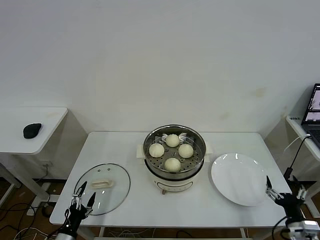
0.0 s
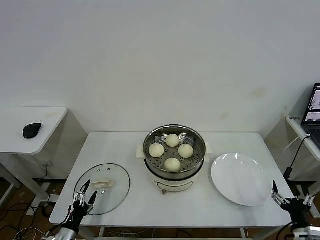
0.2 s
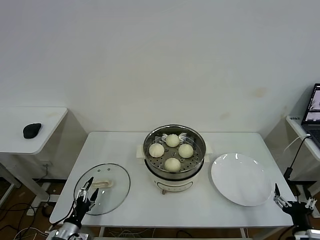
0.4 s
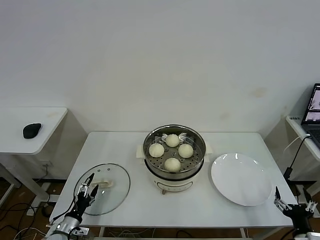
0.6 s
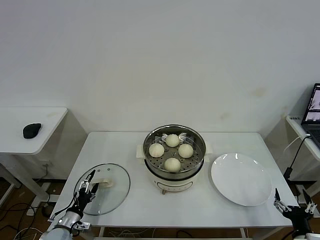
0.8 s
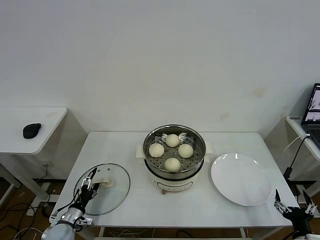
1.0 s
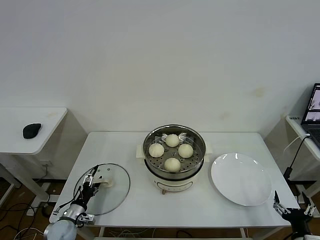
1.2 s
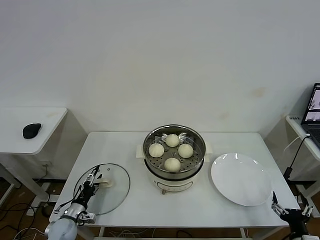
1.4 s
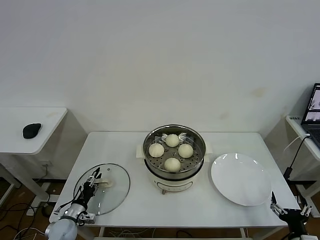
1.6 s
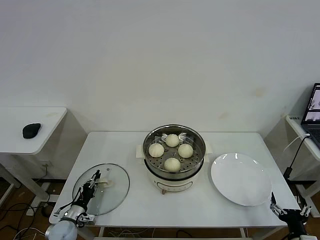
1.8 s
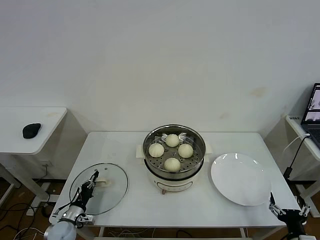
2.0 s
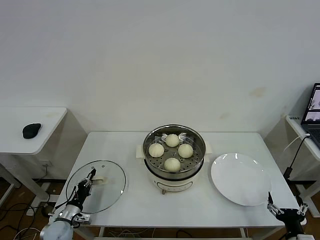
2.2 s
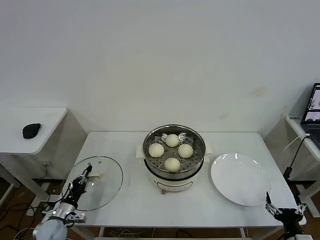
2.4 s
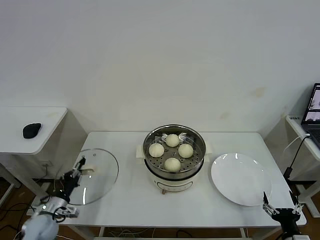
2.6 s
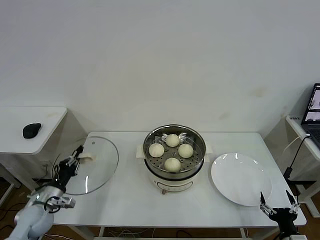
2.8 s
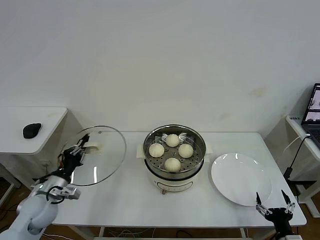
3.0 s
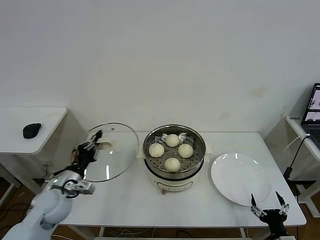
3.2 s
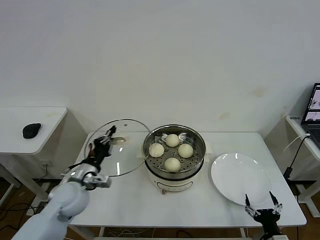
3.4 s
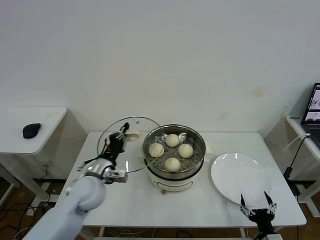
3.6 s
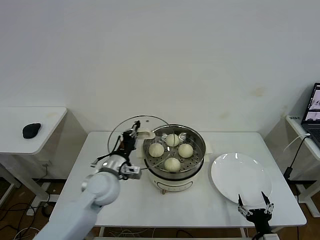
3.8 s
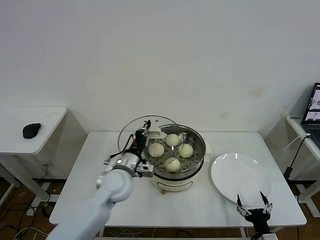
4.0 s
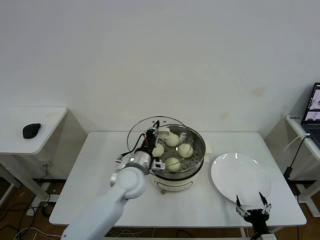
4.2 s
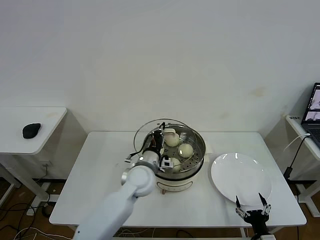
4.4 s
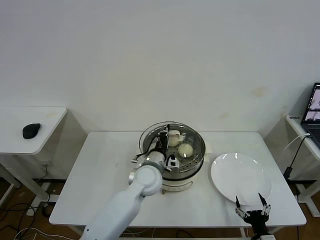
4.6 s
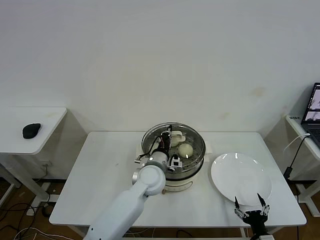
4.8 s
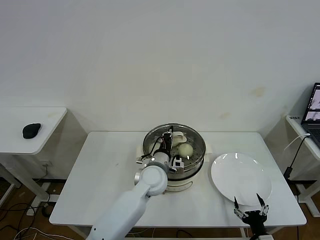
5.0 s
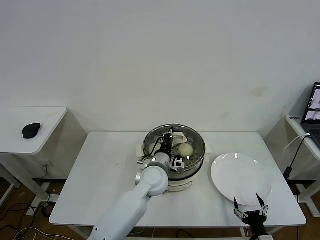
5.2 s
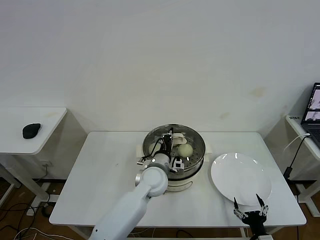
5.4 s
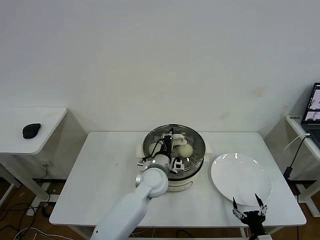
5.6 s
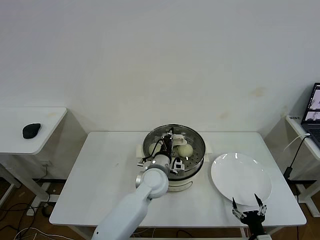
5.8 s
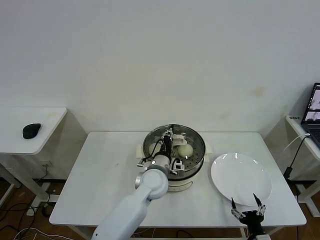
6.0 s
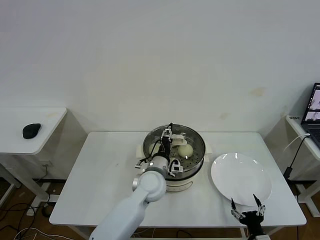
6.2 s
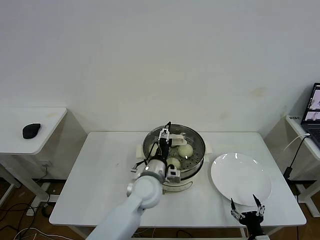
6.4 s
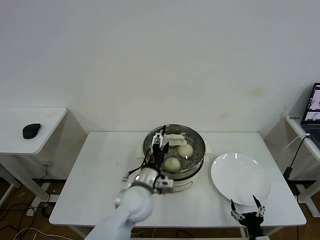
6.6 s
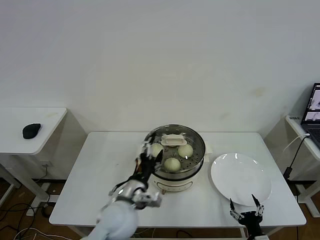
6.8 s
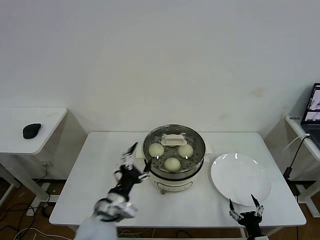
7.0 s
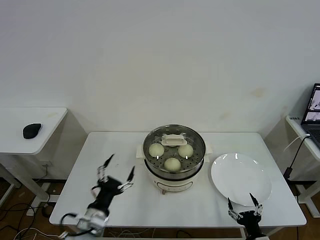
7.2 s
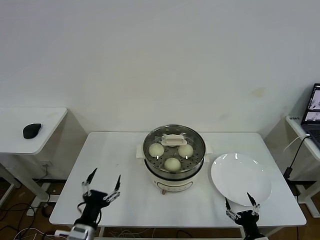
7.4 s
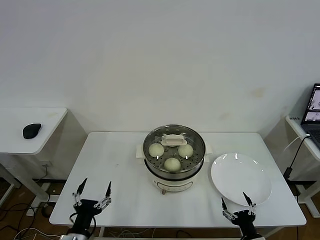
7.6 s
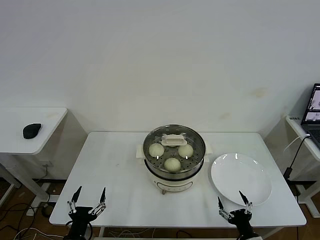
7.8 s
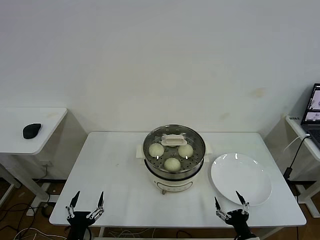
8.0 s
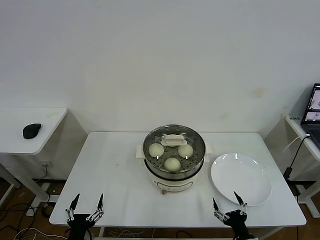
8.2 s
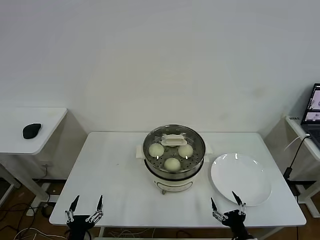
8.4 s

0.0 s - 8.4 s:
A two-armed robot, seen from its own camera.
Task of the whole recording: take steamed baozi put them in steamer then cover it.
Step, 0.0 s - 2.0 s: Grasp the pot lid with left gripper.
Step, 2.2 s - 6.6 s: Place the pot lid on the steamer with left gripper.
0.0 s - 1.4 s: The left gripper moves forward, some 10 cm.
1.4 s - 2.8 s: The left gripper travels upward by about 10 cm, and closes.
2.8 s - 4.2 s: The left gripper moves to the right, some 30 cm. Meanwhile the right gripper is displaced to the left by approximately 5 cm.
4.2 s - 5.6 s: The left gripper moves to the right, approximately 10 cm.
5.6 s - 7.0 s: The left gripper is displaced backward and to the left by approximately 20 cm, and opens.
7.0 s - 8.4 s: The left gripper goes some 25 cm to the left, backward and downward.

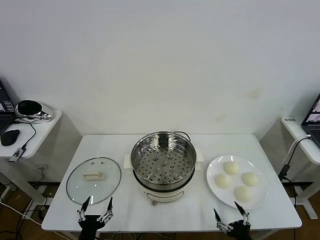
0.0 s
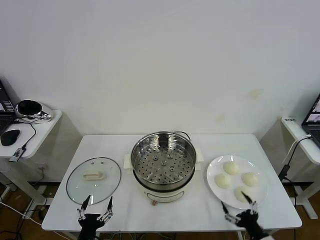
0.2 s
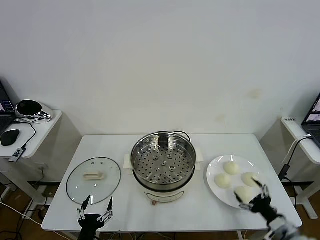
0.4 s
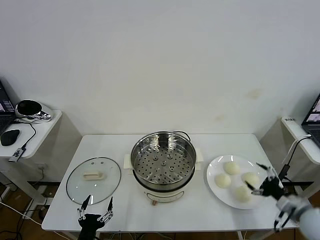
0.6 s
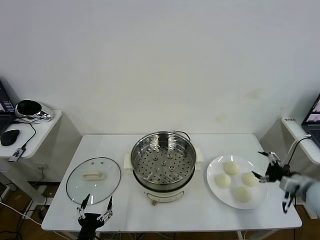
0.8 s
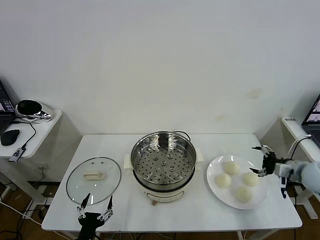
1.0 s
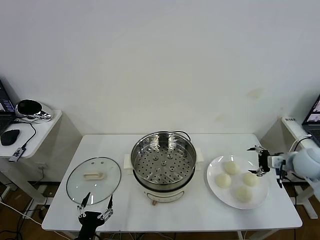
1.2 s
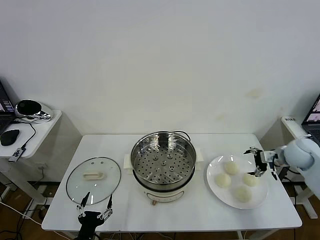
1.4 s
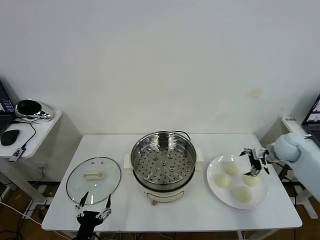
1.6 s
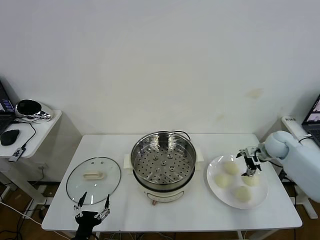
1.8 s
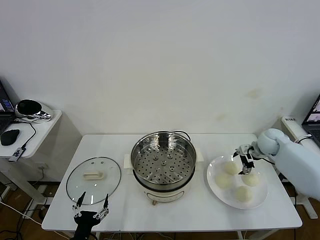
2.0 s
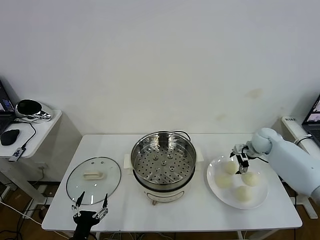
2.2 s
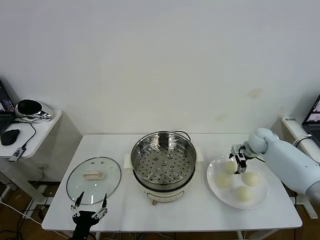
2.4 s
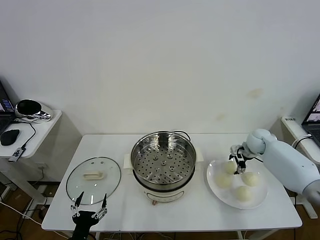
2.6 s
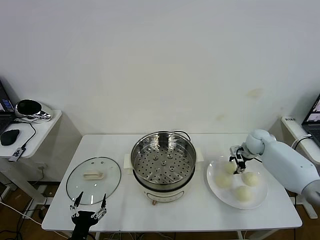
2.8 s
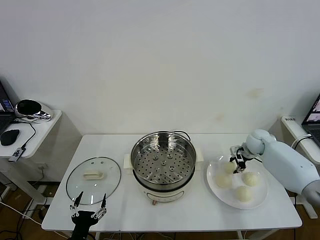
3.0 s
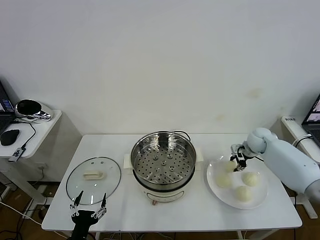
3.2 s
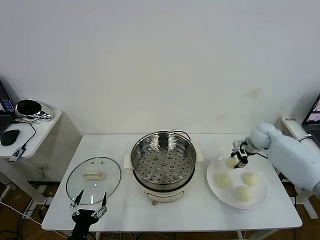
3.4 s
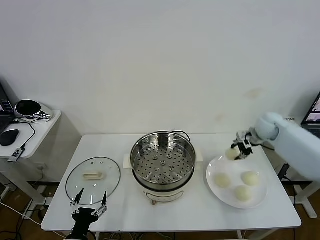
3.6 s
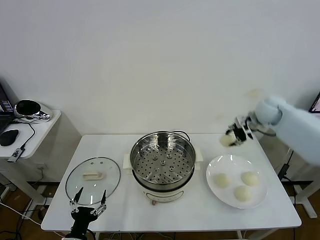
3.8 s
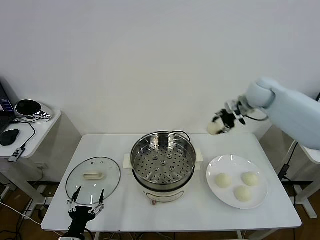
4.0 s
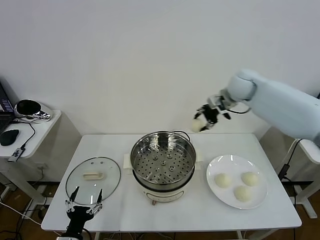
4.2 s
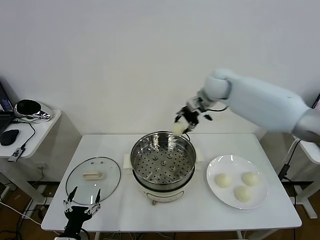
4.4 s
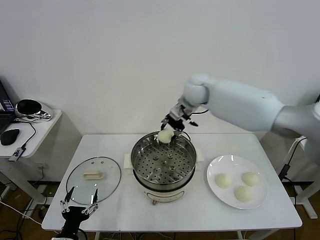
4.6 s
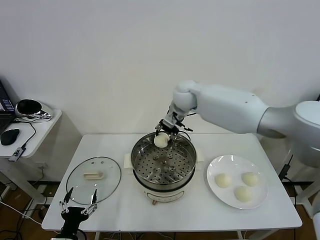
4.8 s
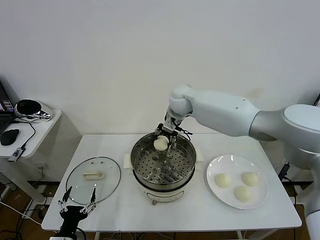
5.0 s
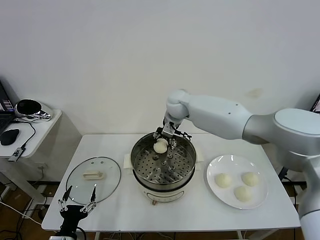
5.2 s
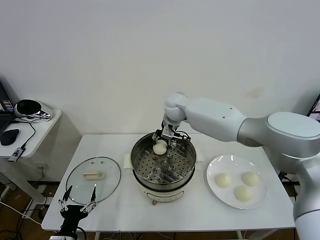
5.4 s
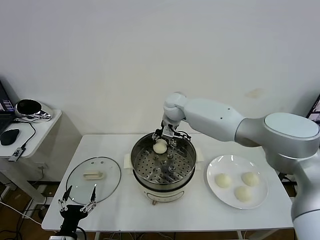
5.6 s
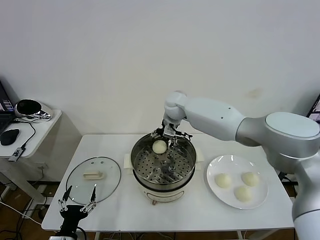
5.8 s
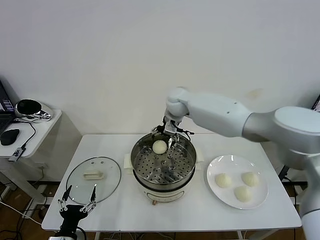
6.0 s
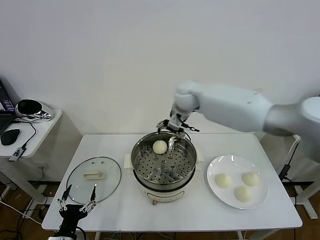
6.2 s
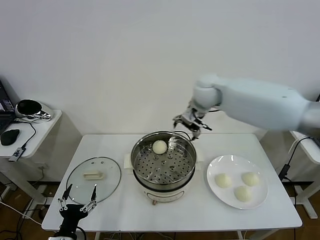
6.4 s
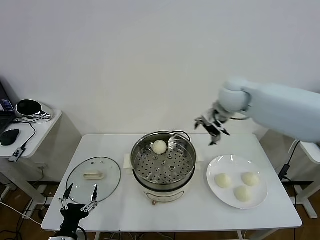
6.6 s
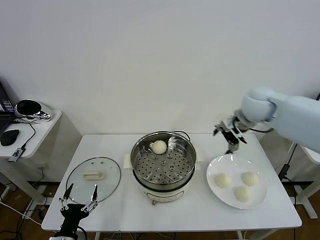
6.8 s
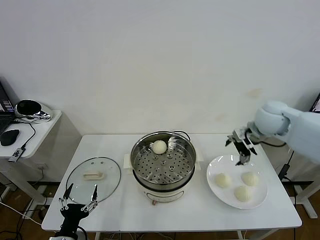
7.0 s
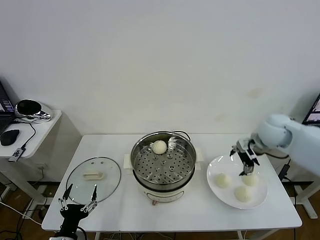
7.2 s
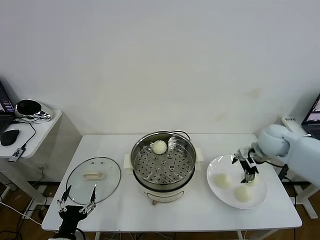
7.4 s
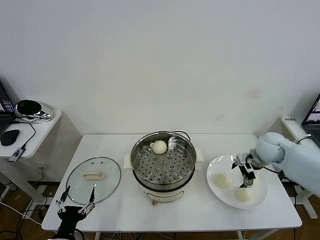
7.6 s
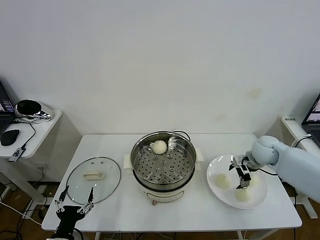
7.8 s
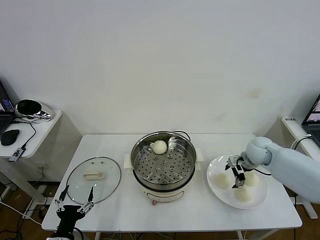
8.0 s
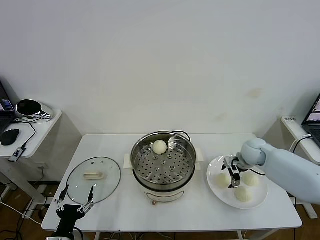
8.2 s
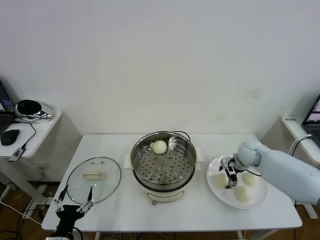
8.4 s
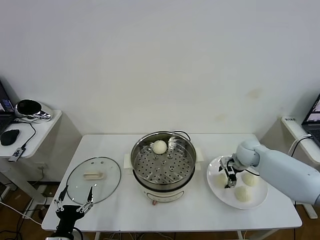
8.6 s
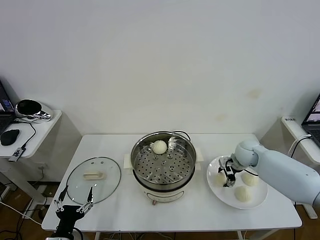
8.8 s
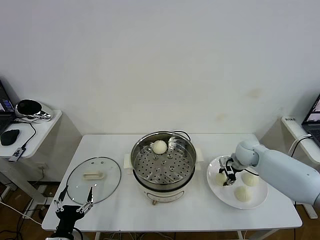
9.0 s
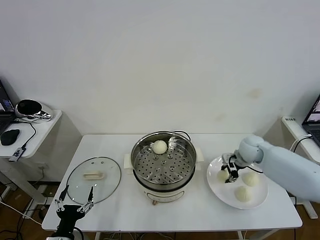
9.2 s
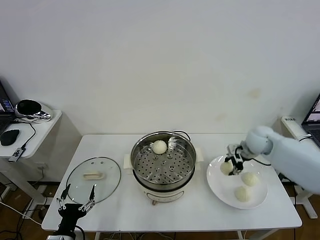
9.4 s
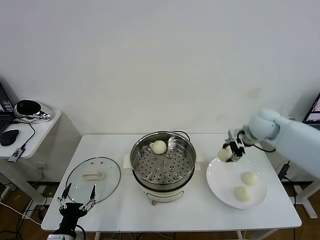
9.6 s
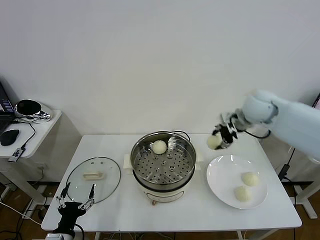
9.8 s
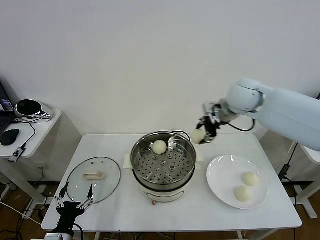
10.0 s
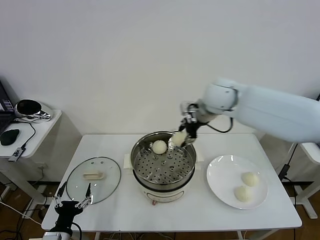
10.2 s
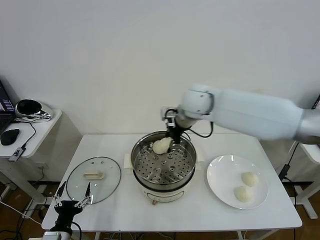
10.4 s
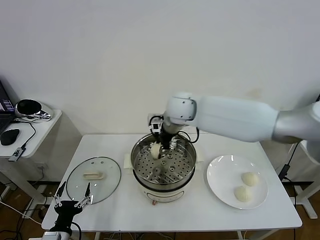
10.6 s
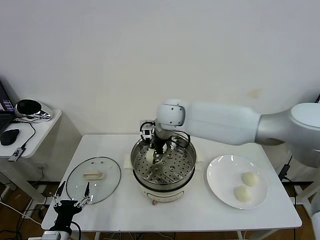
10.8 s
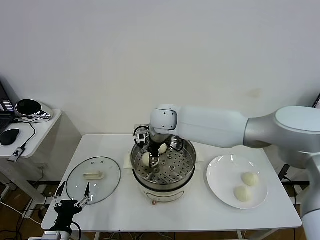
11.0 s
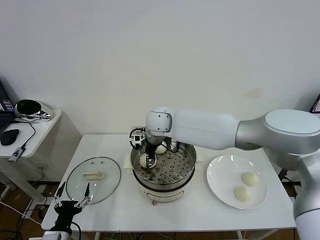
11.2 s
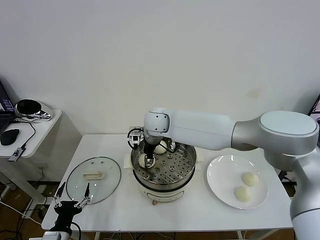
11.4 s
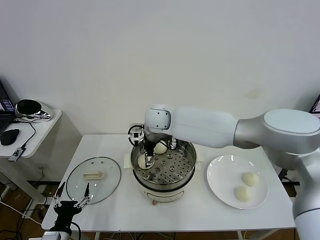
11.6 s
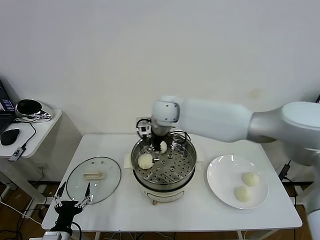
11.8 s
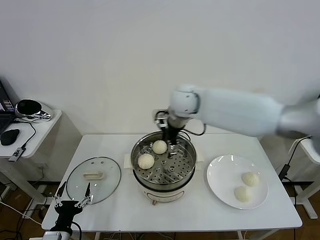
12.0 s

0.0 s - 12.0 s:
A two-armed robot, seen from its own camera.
Task of the whole recording: take steamed baozi put them in steamer then cover it.
Step, 0.0 s - 3.0 s: Grasp the baozi in the plate with right gripper.
Step, 3.2 s - 5.8 s: Place the baozi on the steamer with right gripper.
Step, 6.0 s - 9.0 s: Grasp the baozi in the plate with right gripper.
Step, 9.2 s - 11.6 s: Place the baozi on the steamer with right gripper.
1.6 s - 3.0 s: The right gripper moves forward, about 5 cm, and closes up.
3.0 s - 4.4 s: The right gripper travels to the left and upward by some 35 cm.
4.4 s - 6.0 s: The right gripper opens.
6.0 s - 7.6 s: The right gripper travels to the right and downward by about 30 cm.
7.6 s - 9.0 s: The right gripper ends up about 5 cm from where it was, and closes.
9.0 s - 10.4 s: The right gripper heads to the left and upward, covering some 35 cm.
10.4 s - 12.0 s: The right gripper travels to the left and back again, some 10 cm each way, and opens up.

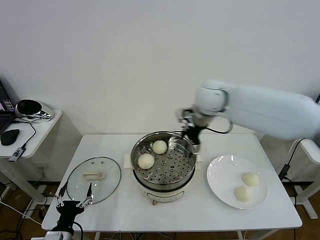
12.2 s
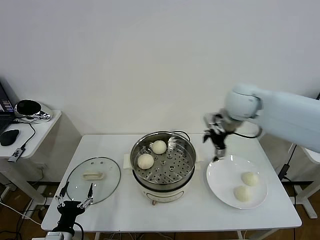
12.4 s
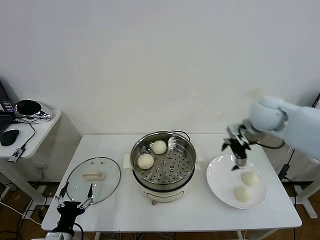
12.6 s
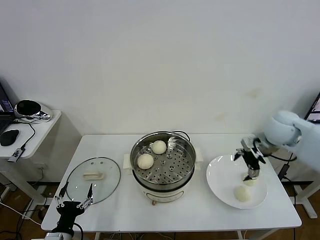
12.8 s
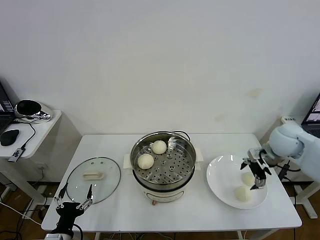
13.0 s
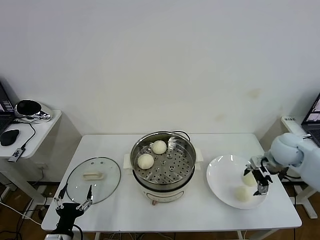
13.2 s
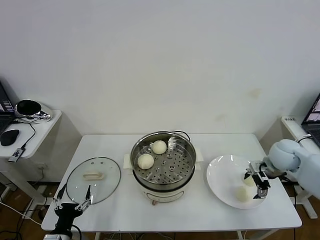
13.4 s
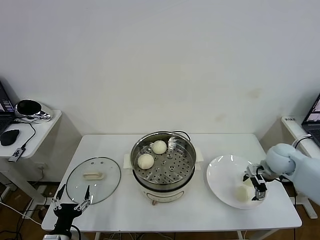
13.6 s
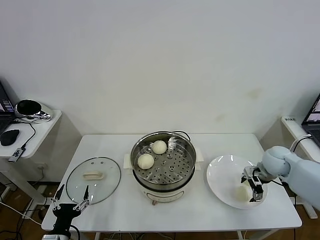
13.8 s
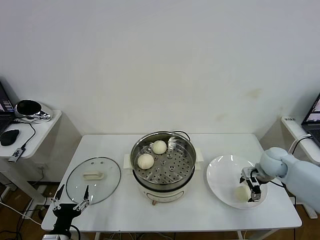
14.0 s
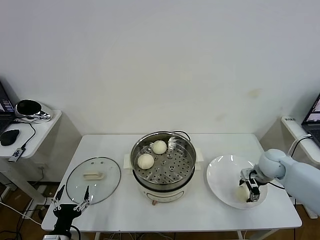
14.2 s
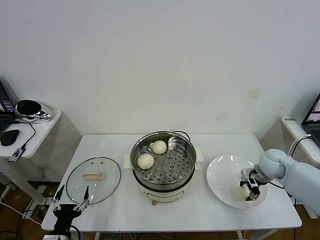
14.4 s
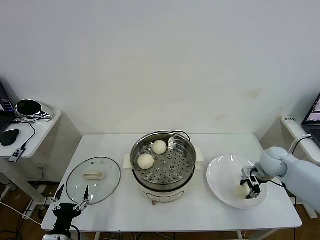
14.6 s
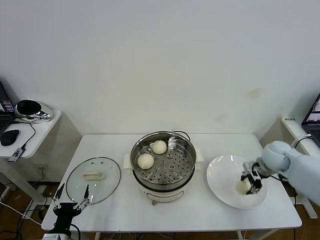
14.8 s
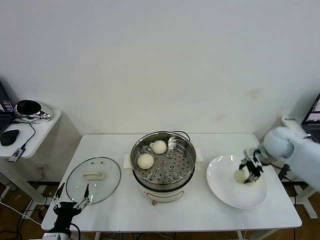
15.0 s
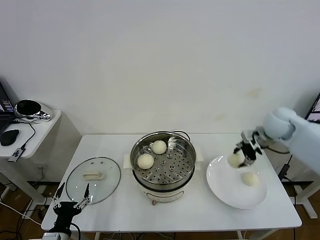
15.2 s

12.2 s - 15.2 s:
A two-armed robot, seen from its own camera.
Task of the whole recording: take steamed baozi put them in steamer then cover it.
Step, 12.2 s - 14.4 s: Grasp the baozi in the plate with right gripper.
12.2 s - 13.8 s: The right gripper moves downward and to the right, approximately 30 cm.
13.8 s - 15.2 s: The right gripper shifts roughly 15 cm upward and forward, and closes its fingers.
